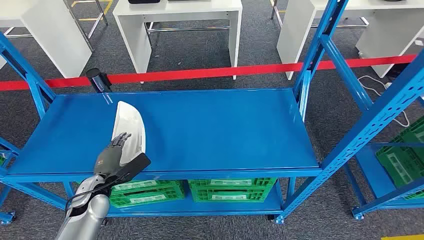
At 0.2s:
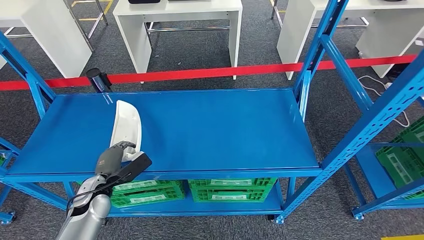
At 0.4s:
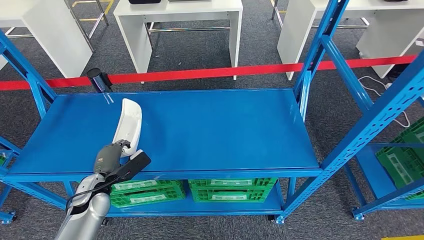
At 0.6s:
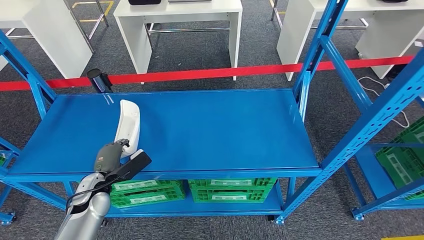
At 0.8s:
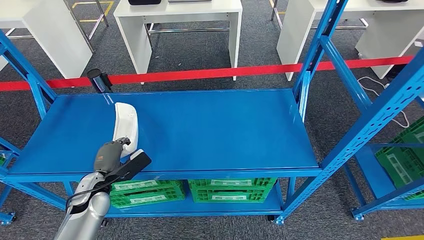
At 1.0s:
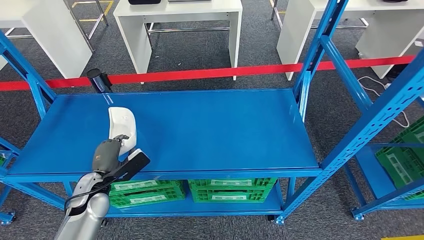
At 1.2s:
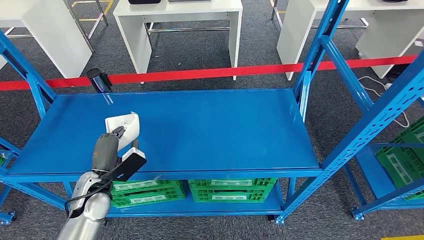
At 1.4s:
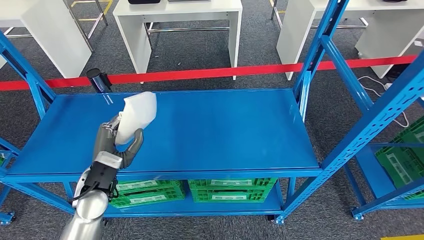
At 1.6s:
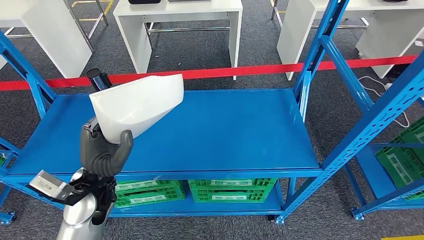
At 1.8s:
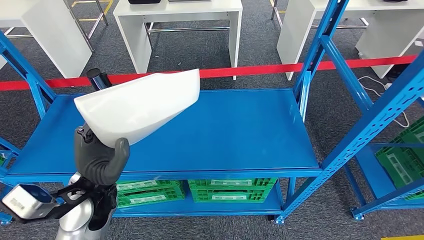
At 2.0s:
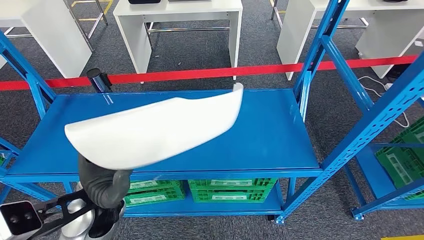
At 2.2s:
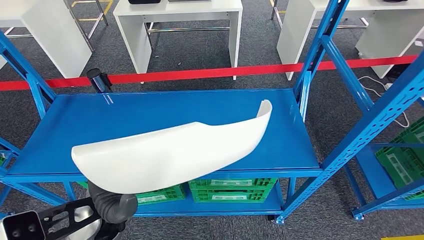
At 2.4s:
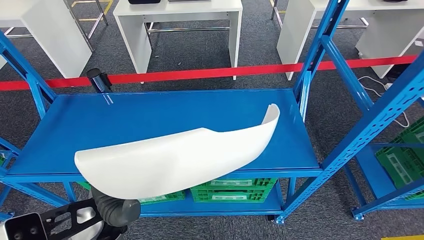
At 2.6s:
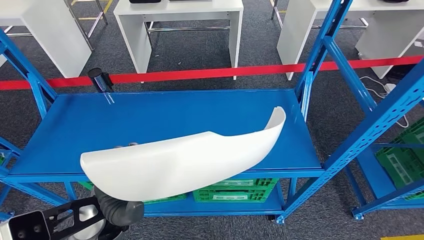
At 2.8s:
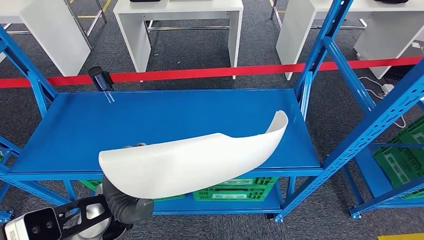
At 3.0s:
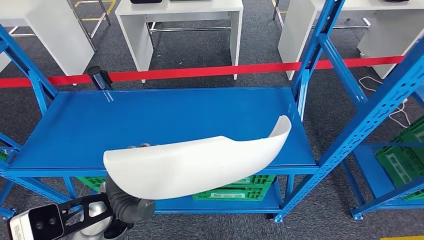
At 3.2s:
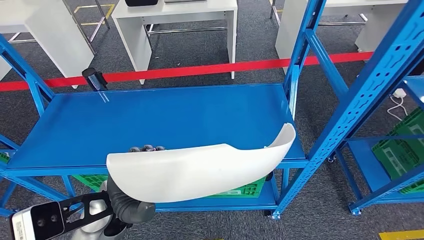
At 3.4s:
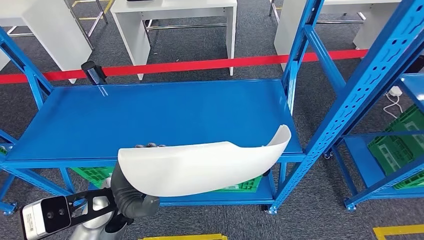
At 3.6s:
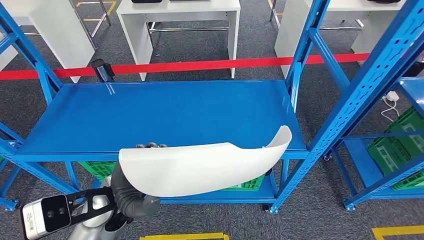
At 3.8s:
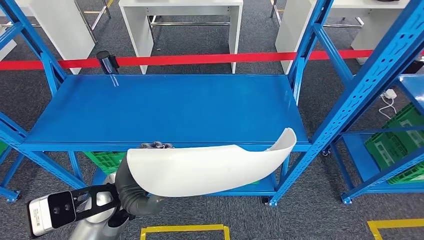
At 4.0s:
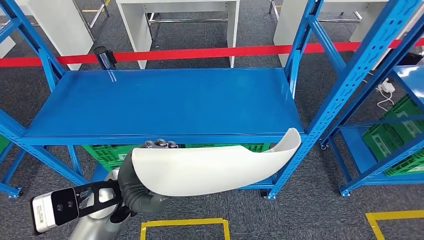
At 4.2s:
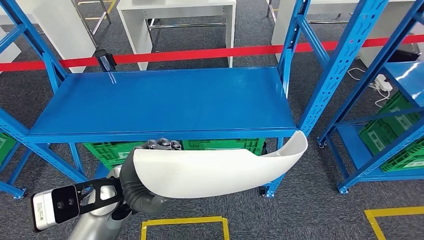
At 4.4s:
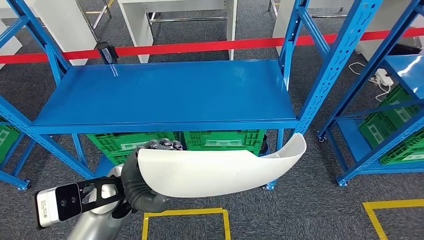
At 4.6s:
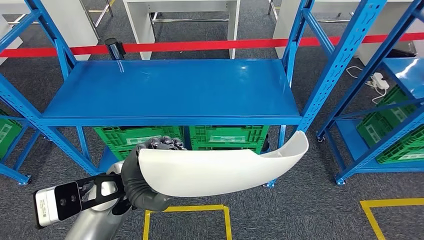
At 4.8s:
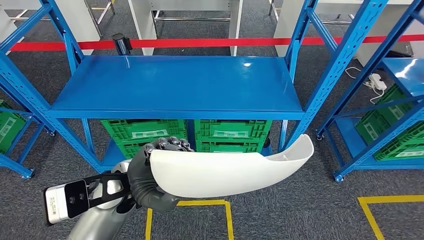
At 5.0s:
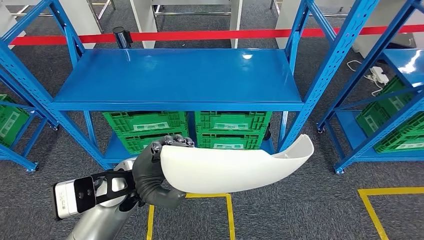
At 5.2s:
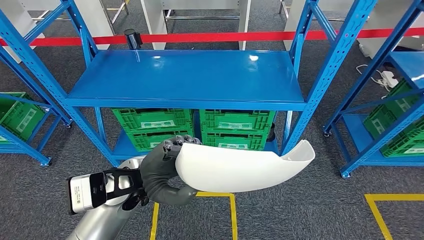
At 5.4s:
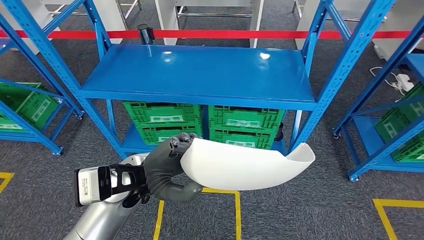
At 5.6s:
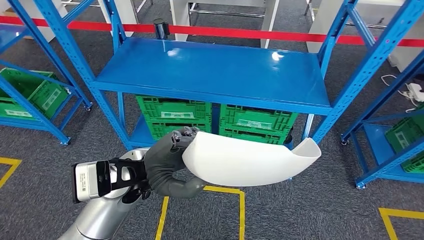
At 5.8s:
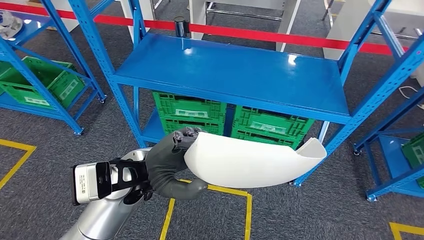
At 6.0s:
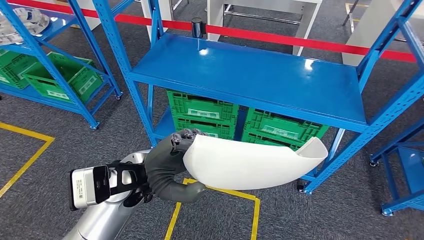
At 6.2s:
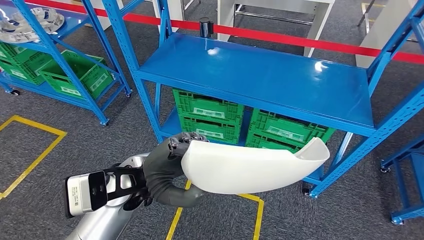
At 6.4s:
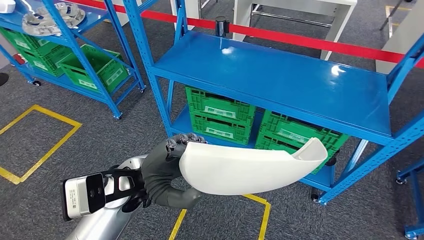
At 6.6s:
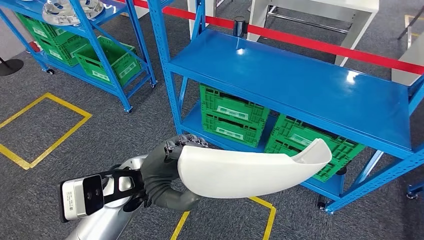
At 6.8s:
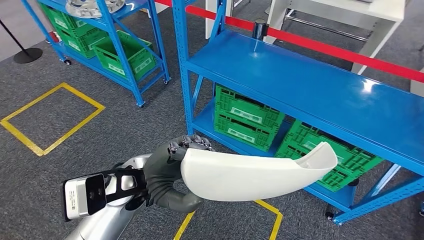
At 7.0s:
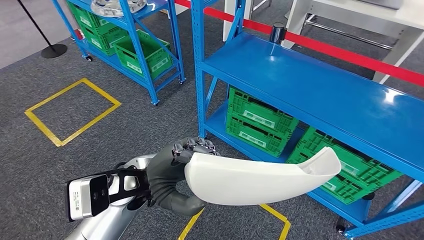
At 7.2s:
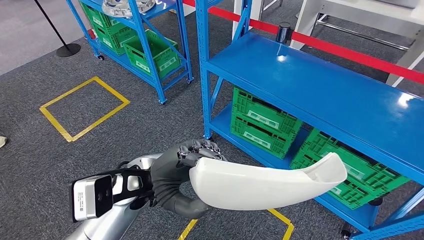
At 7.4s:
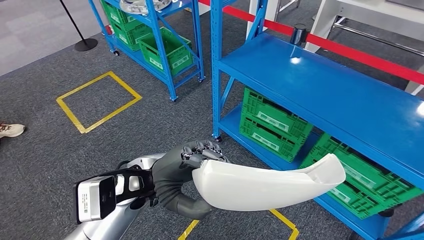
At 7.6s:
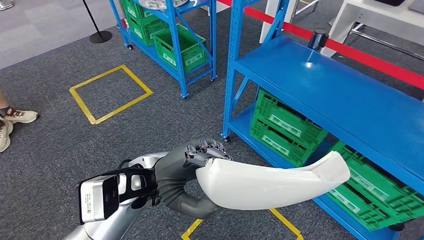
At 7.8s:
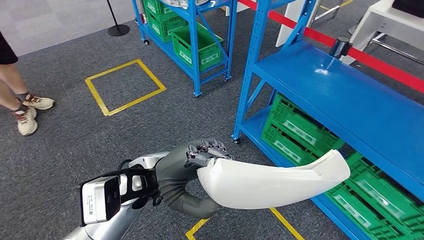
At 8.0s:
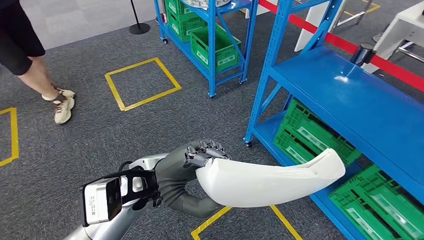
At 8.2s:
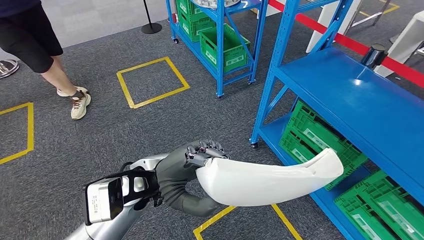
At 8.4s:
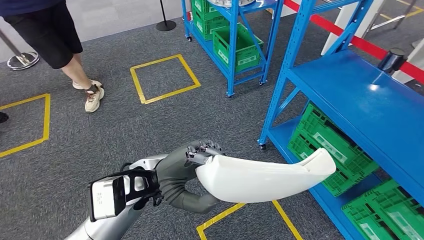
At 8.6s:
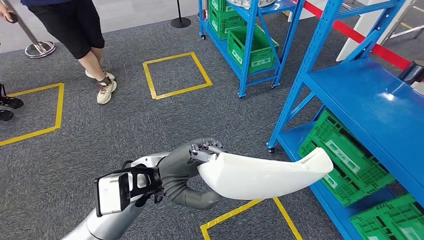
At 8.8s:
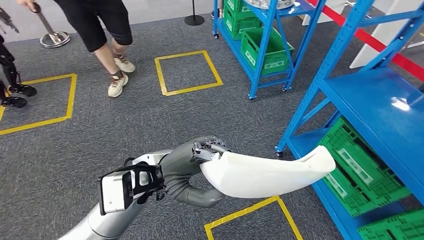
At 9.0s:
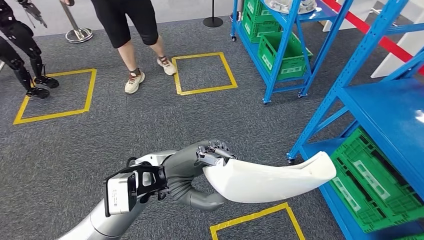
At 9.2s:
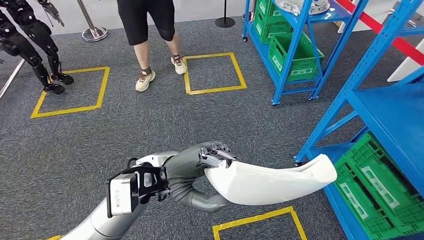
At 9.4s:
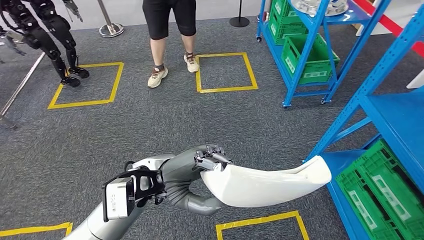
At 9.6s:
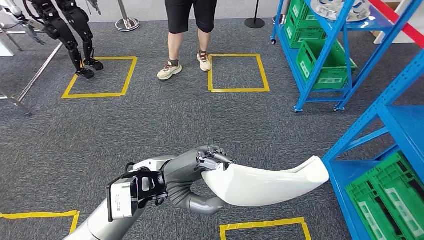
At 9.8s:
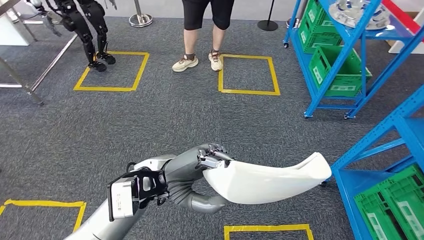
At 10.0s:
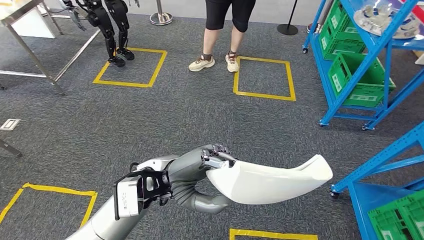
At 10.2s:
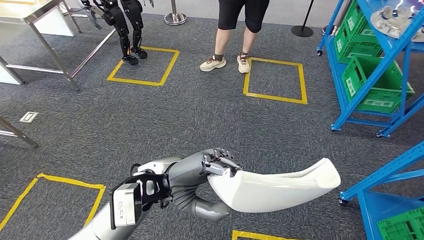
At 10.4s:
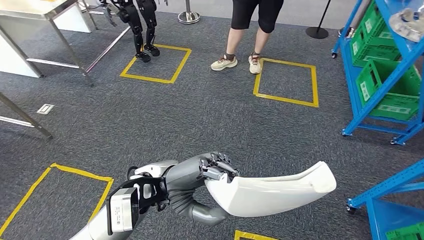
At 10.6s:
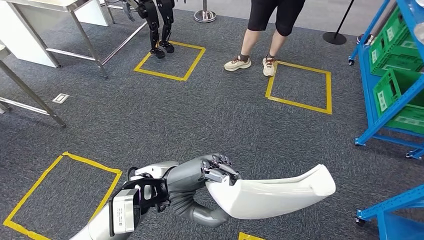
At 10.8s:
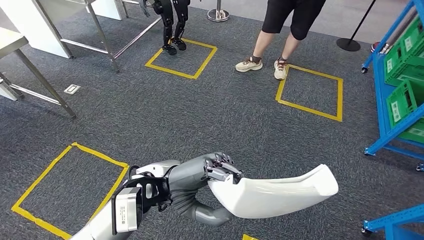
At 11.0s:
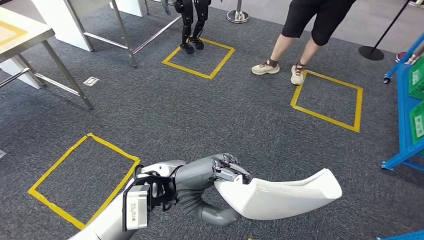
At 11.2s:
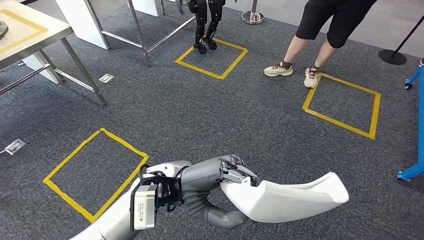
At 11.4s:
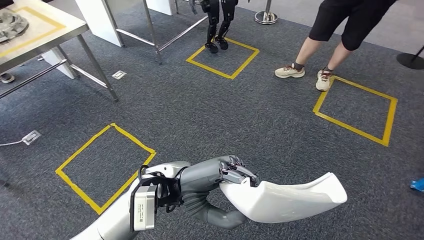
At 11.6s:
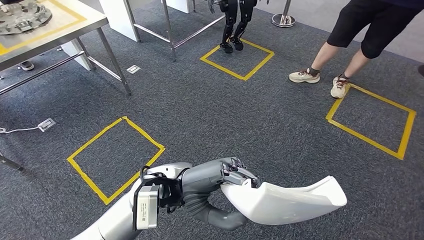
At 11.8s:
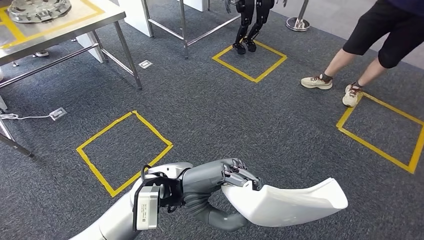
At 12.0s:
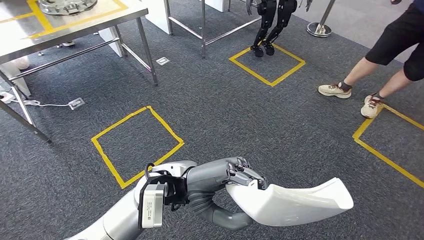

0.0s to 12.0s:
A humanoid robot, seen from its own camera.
Step, 0.0s to 2.4s: Pick up the small parts from the shelf.

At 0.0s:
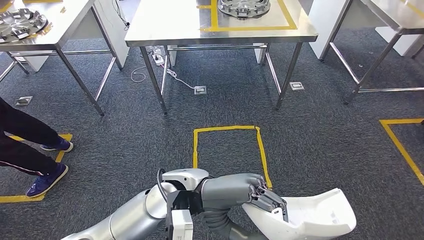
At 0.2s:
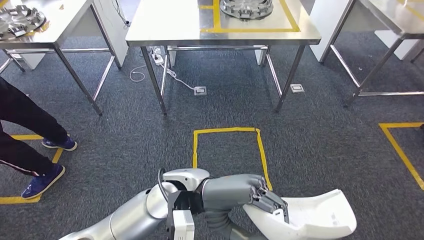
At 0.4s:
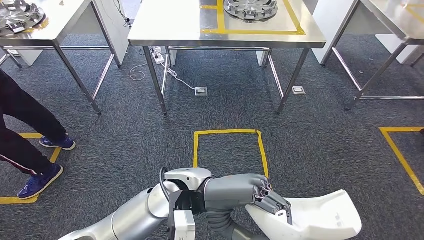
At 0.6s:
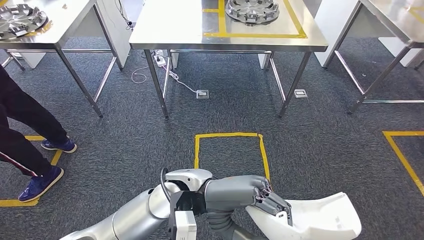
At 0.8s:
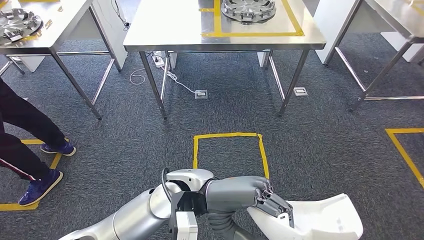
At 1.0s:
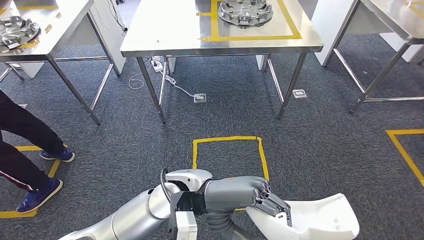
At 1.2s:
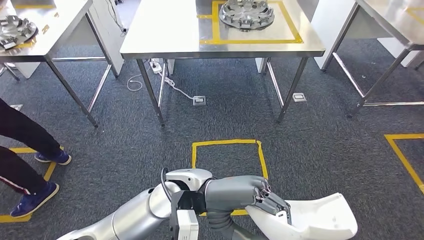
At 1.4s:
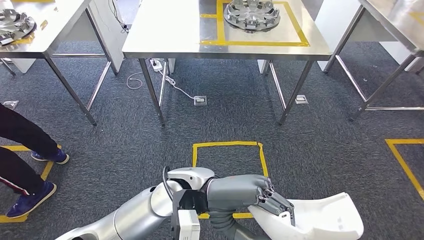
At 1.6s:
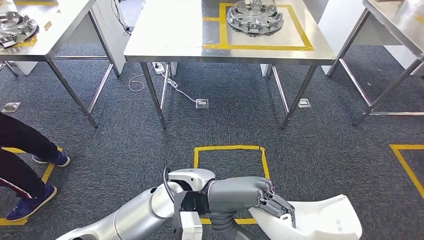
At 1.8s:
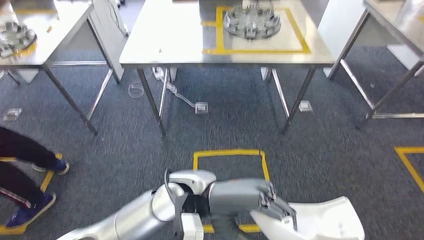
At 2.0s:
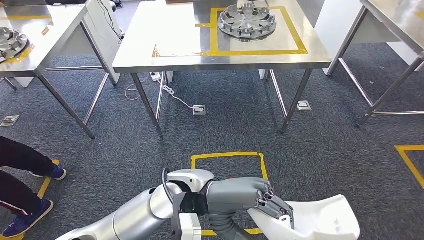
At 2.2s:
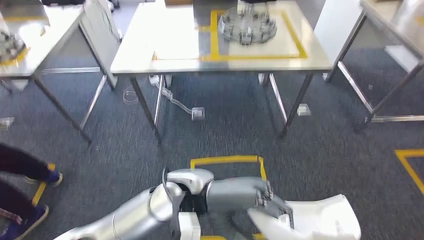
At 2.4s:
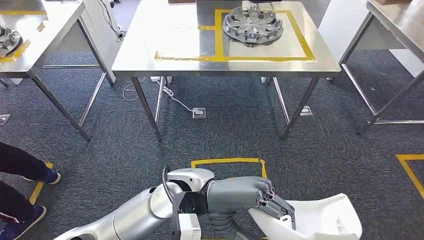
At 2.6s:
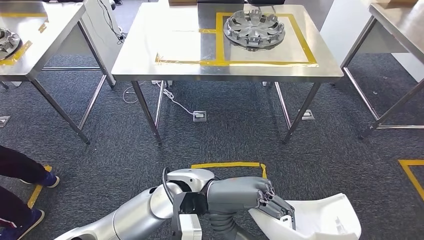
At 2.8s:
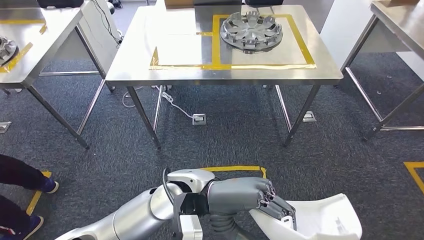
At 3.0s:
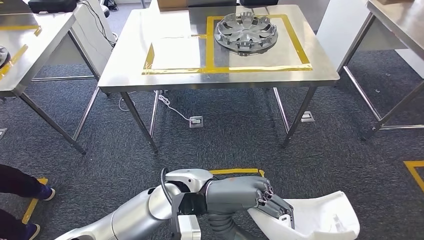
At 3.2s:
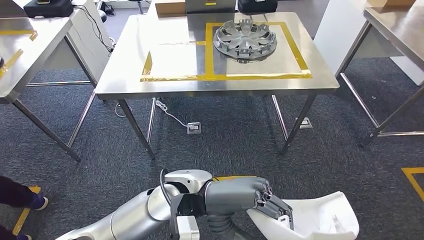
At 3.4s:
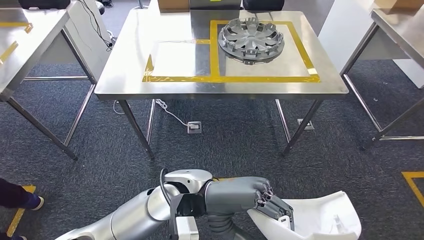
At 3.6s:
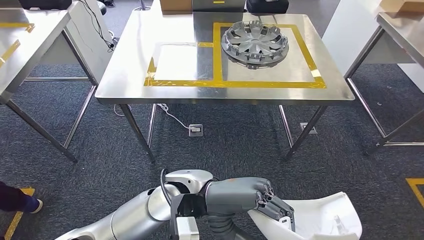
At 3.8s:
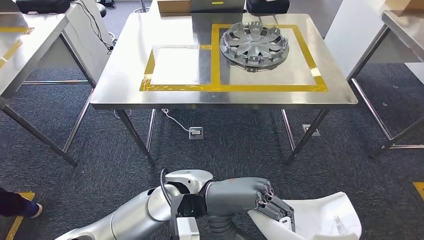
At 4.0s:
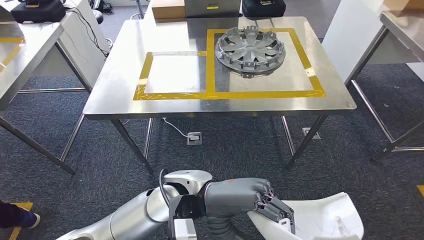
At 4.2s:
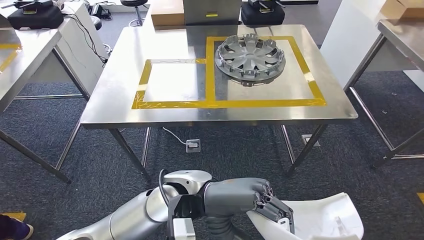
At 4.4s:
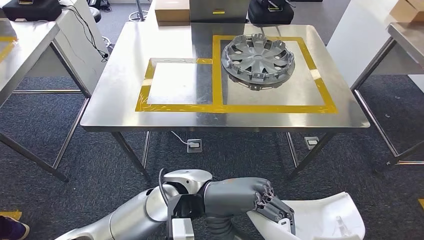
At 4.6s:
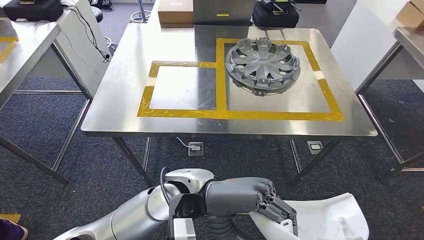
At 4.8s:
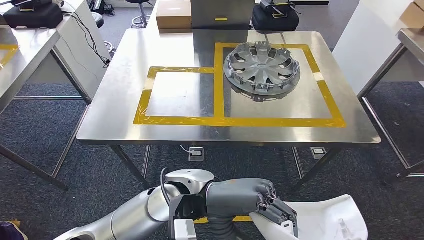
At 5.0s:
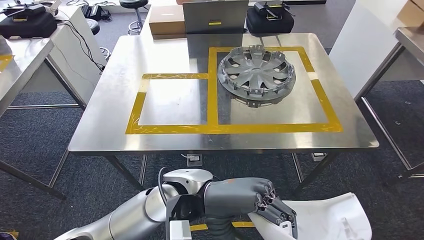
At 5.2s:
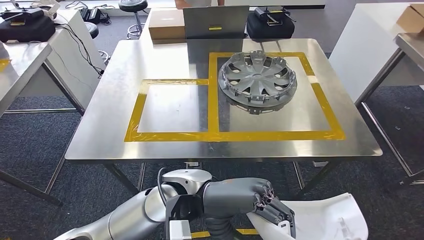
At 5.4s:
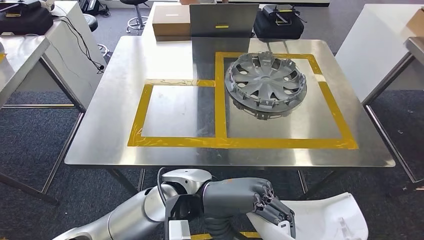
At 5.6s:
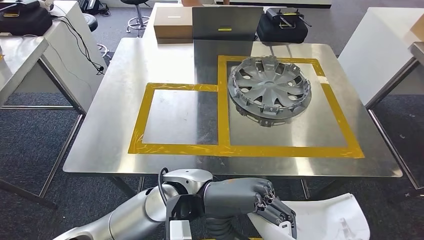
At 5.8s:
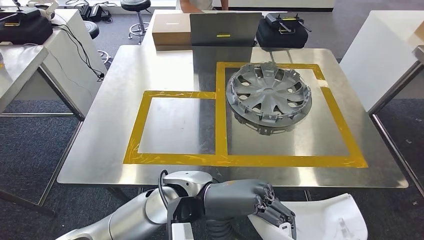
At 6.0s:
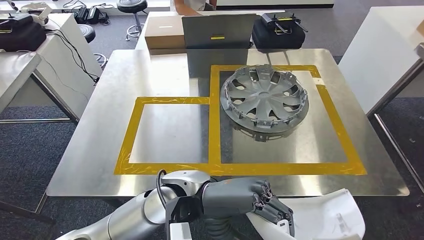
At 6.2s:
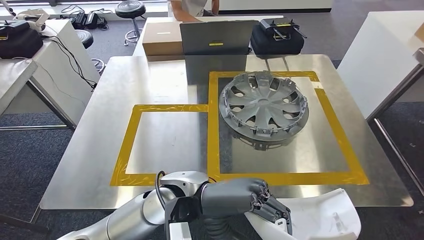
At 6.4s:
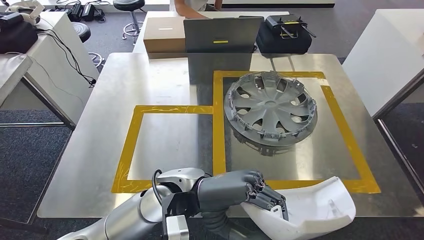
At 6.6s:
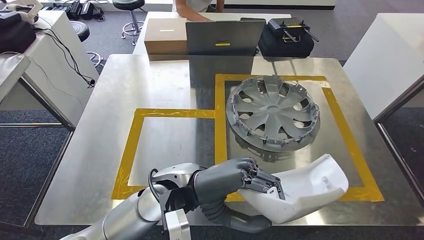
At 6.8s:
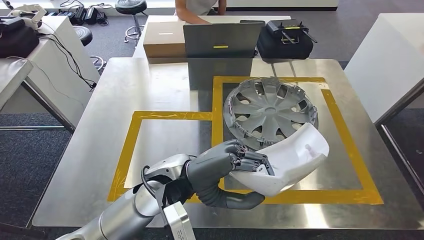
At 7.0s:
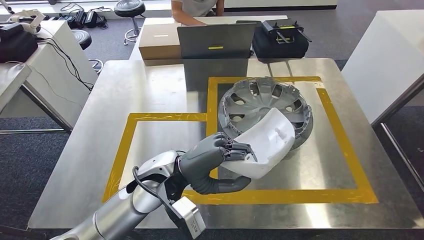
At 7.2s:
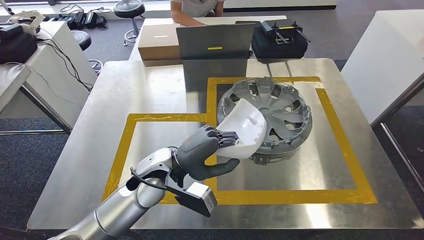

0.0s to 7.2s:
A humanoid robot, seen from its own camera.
Step, 0.0s to 6.0s: Move the small parts to the workbench.
